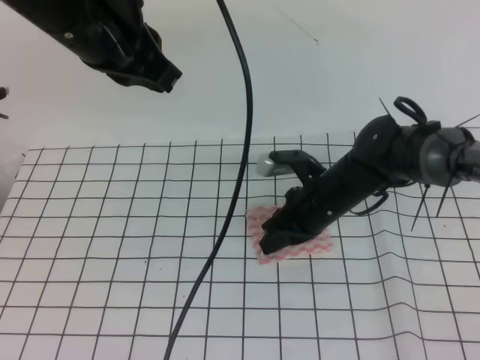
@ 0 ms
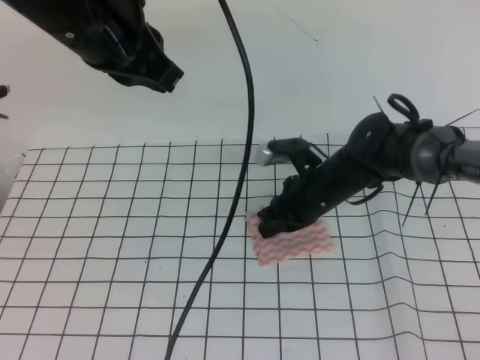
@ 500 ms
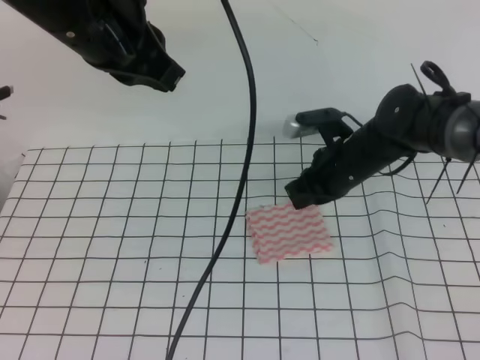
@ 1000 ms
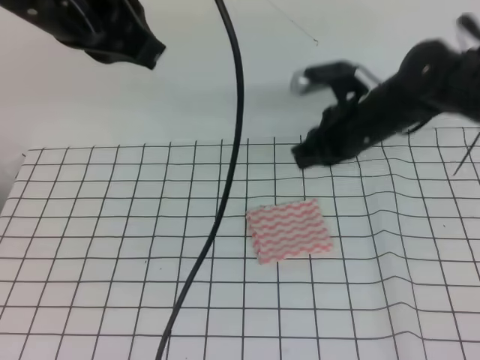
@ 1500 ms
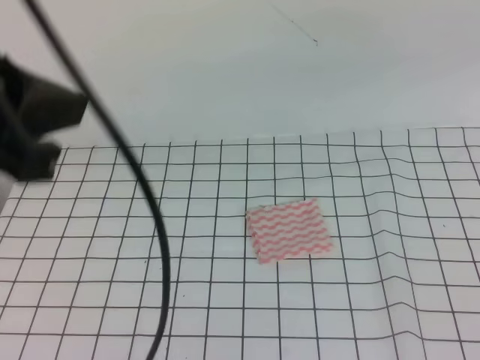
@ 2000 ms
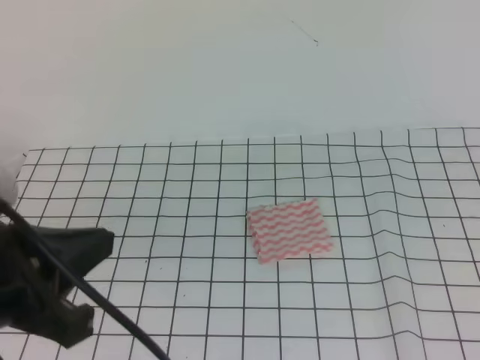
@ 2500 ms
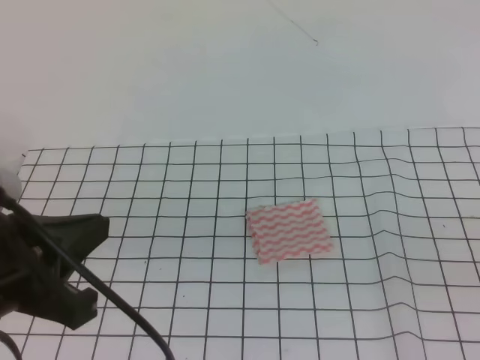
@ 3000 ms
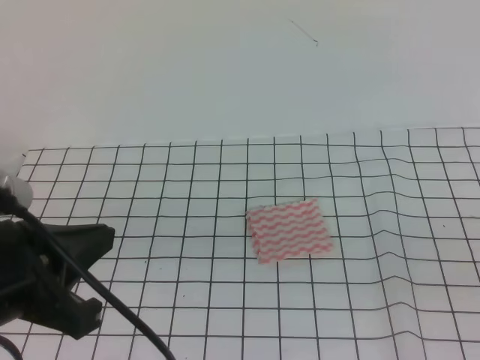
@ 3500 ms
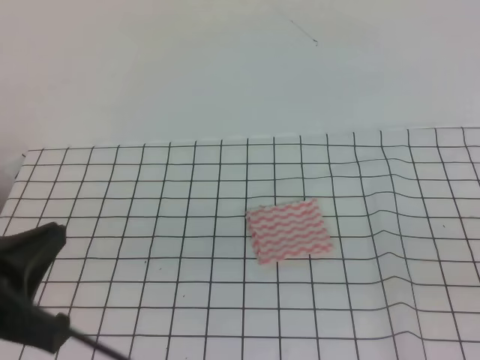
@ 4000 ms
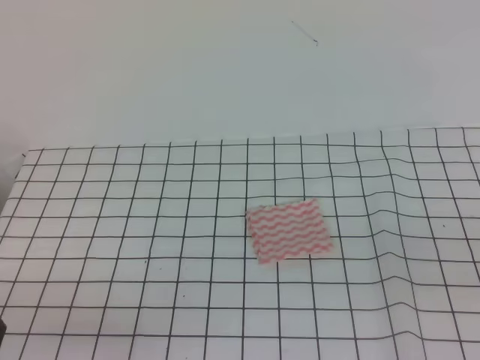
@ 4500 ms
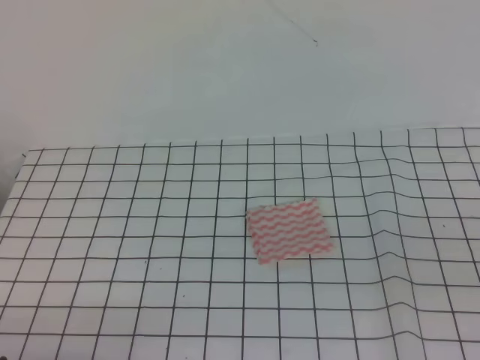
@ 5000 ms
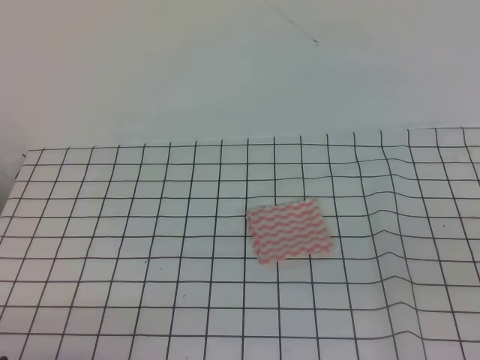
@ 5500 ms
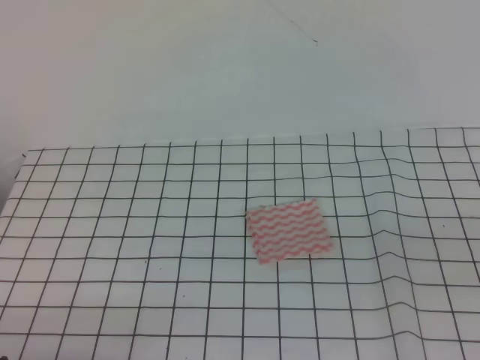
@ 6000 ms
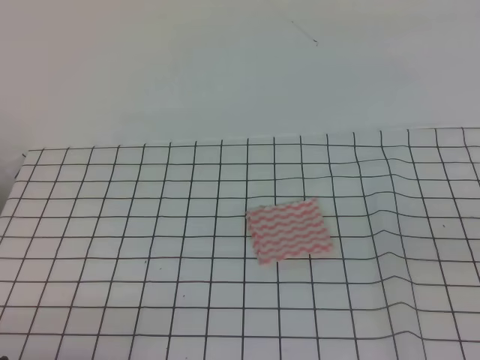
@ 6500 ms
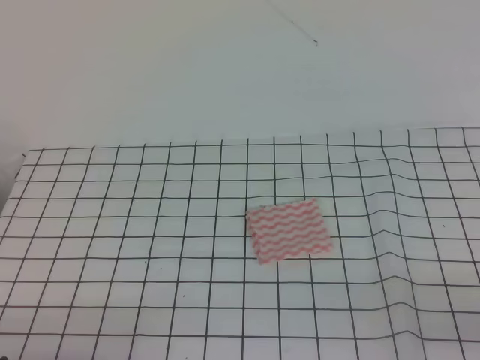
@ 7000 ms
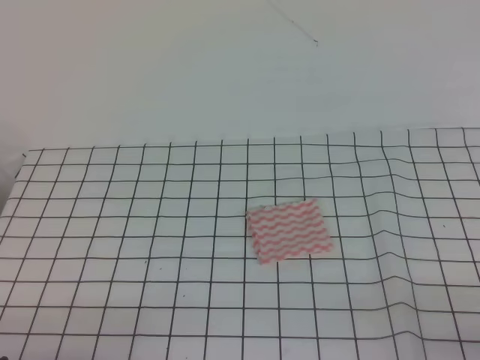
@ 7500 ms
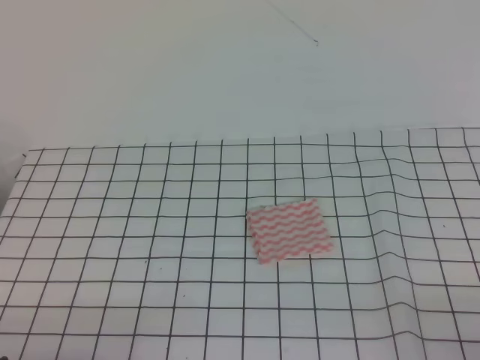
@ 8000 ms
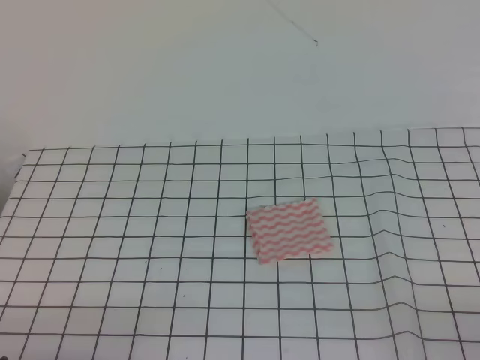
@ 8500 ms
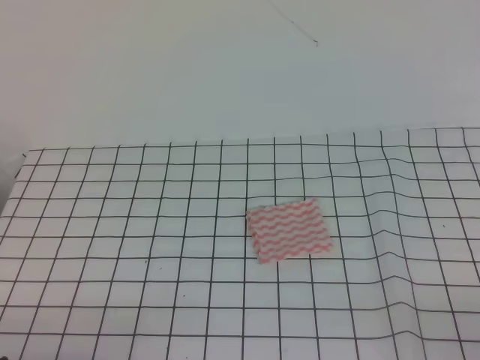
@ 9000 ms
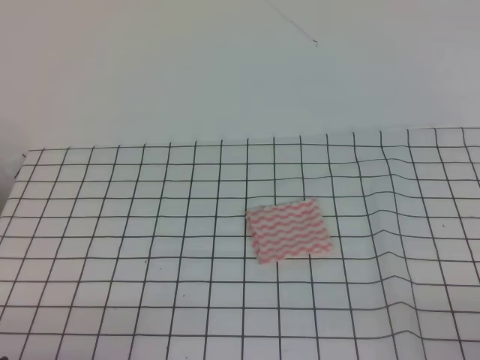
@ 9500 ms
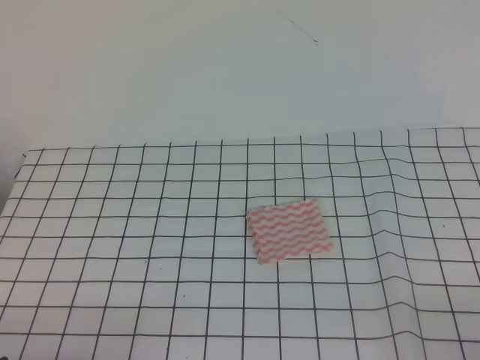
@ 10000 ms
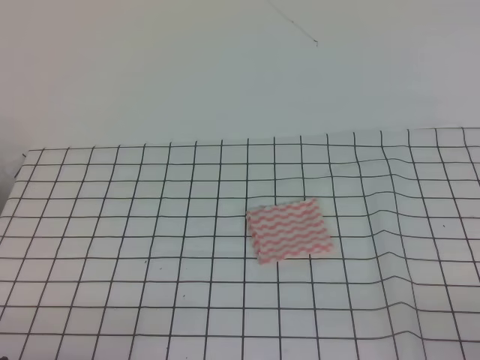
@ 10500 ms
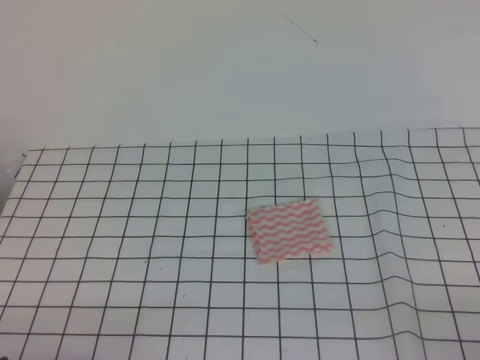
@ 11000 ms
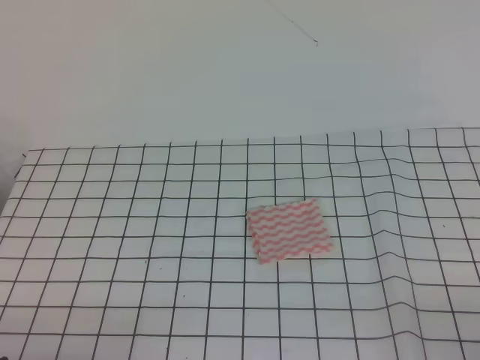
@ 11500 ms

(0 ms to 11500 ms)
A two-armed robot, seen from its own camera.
Step, 0 ms - 11500 ms: Fold the towel.
0 ms - 2000 ms: The left gripper travels backward by some 15 cm, while the right gripper moves upward and backward, approximately 35 cm.
2000 ms - 4000 ms: The left gripper travels downward by some 15 cm; the right gripper travels downward and backward by some 25 cm.
4000 ms - 6000 ms: The left gripper heads downward and backward, covering some 15 cm.
9500 ms - 11500 ms: Both grippers stay put.

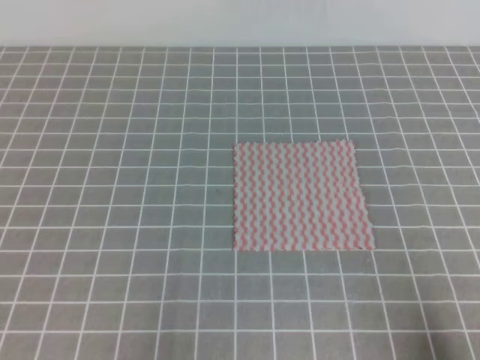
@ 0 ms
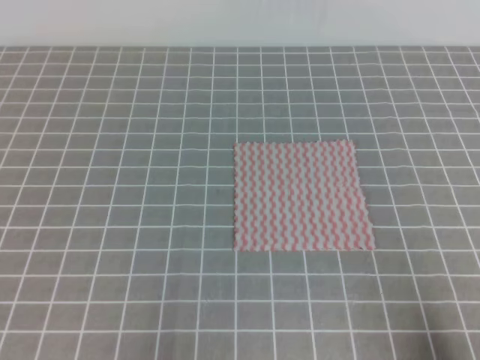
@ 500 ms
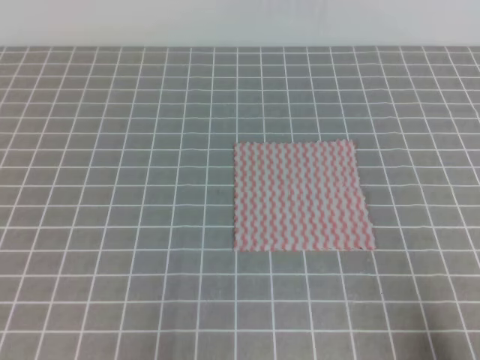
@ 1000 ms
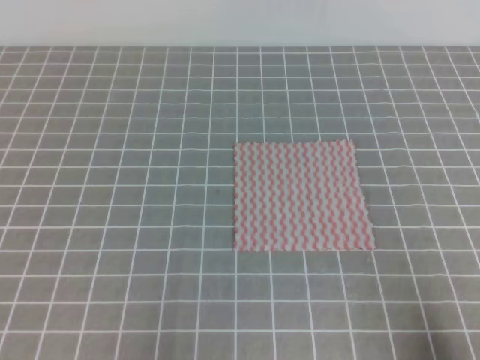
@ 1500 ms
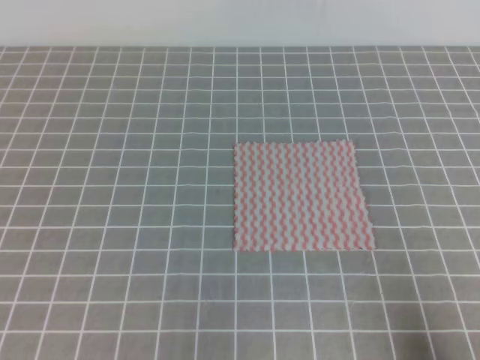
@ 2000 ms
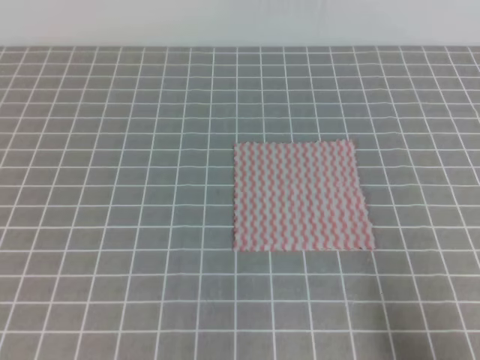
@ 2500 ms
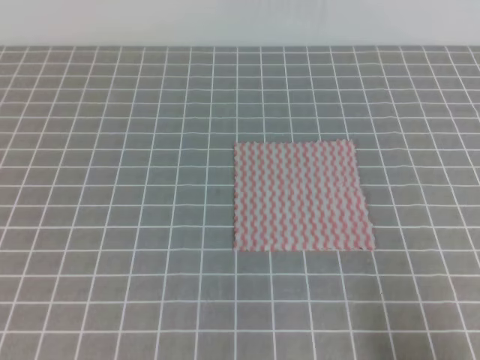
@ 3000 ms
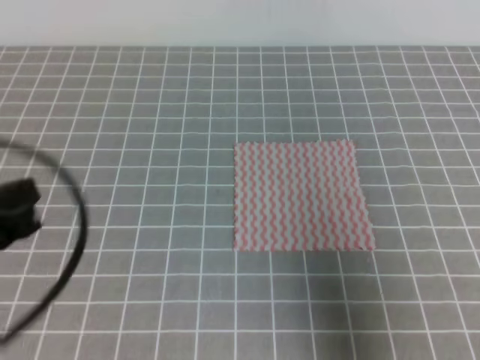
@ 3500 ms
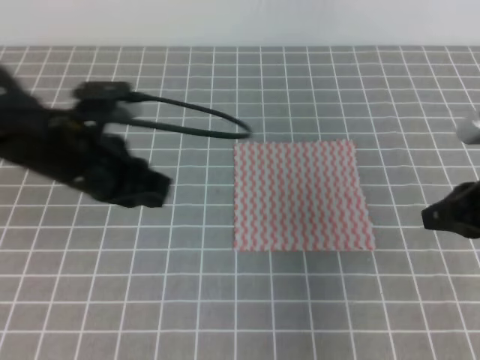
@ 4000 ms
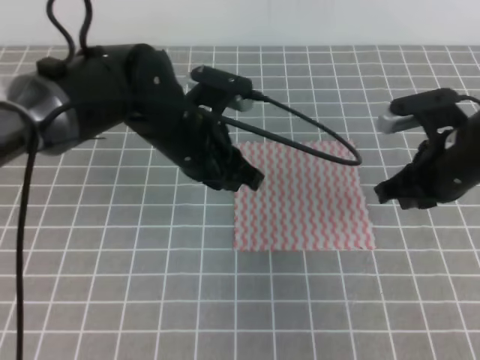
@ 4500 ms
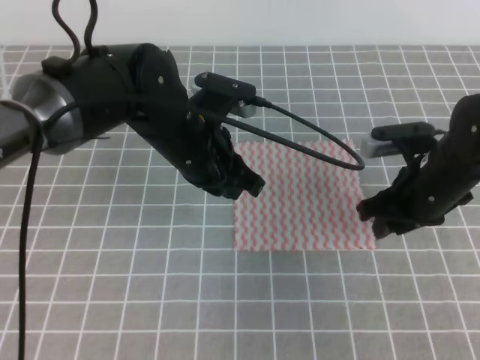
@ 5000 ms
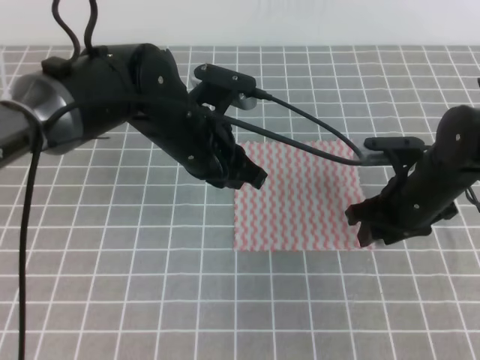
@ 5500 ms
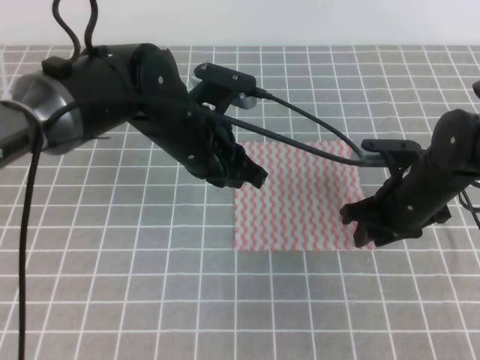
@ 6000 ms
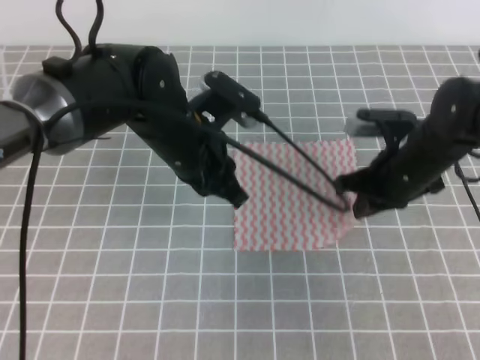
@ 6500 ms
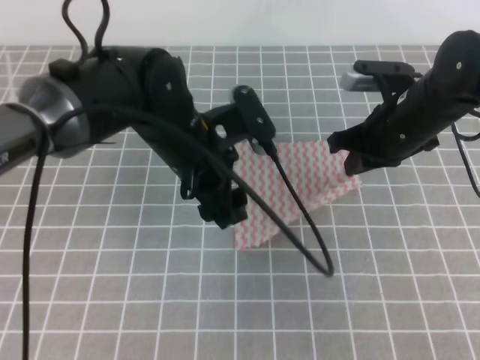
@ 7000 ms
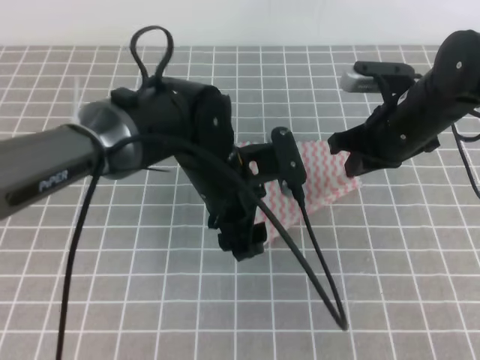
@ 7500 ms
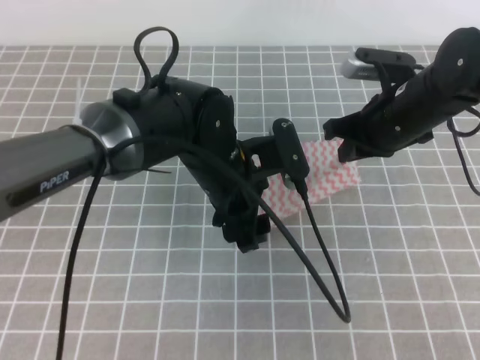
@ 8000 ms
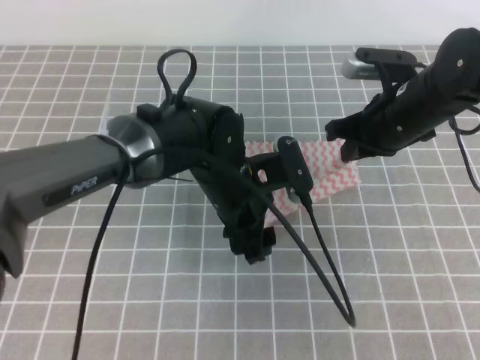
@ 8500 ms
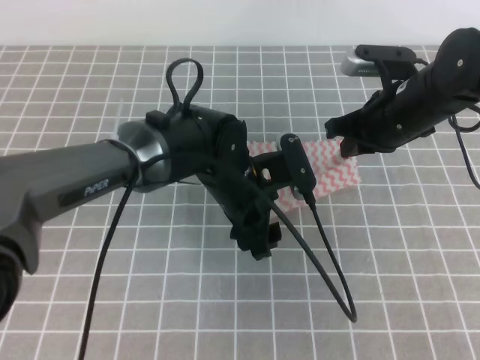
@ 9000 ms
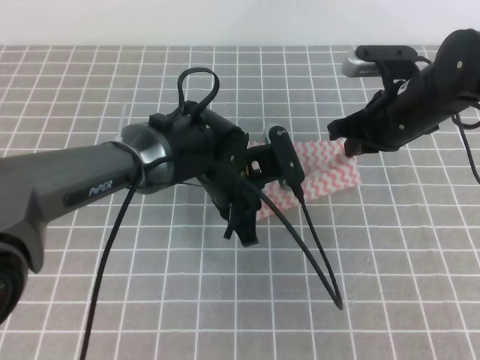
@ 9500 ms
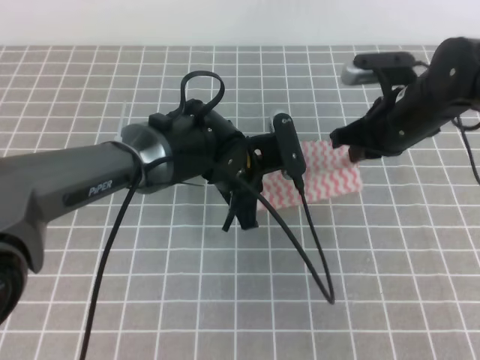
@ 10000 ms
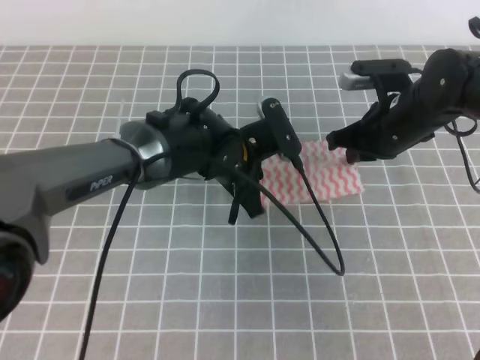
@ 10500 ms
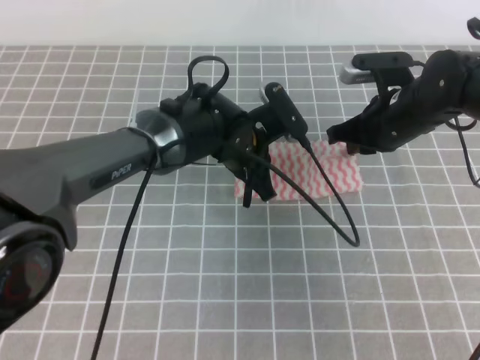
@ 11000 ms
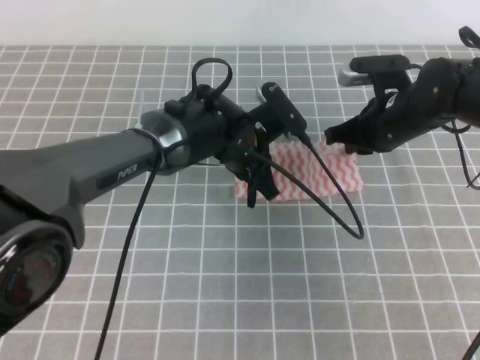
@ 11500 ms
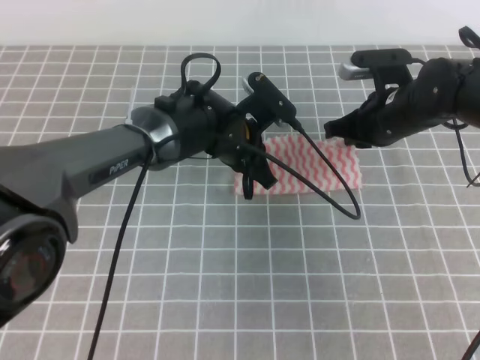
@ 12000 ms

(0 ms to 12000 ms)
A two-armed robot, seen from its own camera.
2000 ms - 4000 ms: The left gripper shifts roughly 25 cm forward and to the right, while the right gripper travels forward and upward by approximately 20 cm.
4000 ms - 6000 ms: The right gripper moves forward, downward and to the left, about 15 cm, and opens. The left gripper moves to the right, some 10 cm.
6000 ms - 8000 ms: The right gripper heads upward, covering roughly 10 cm, and closes, while the left gripper ends up approximately 5 cm from where it was, and opens its fingers.
8000 ms - 10000 ms: The left gripper changes place by approximately 5 cm, and closes up.

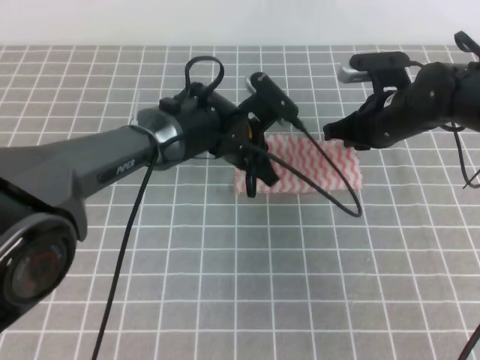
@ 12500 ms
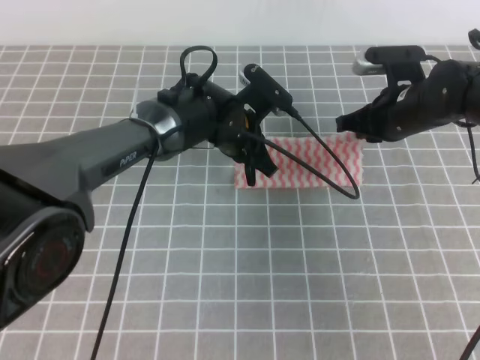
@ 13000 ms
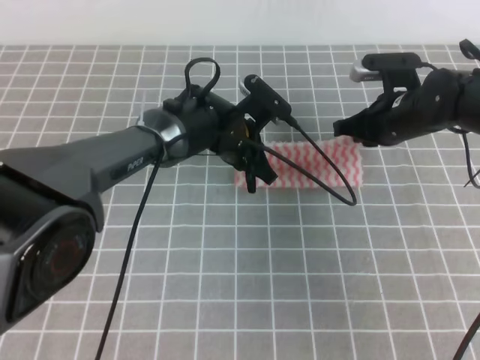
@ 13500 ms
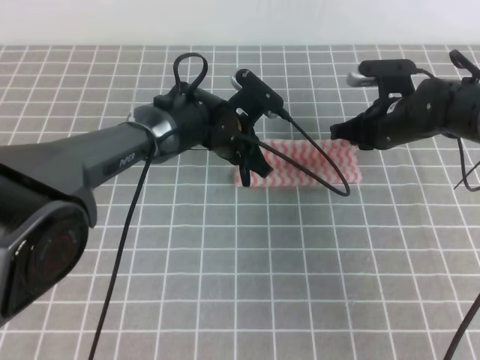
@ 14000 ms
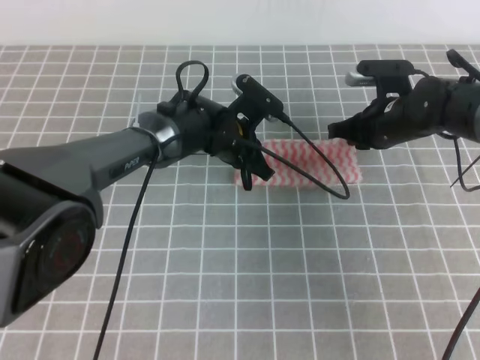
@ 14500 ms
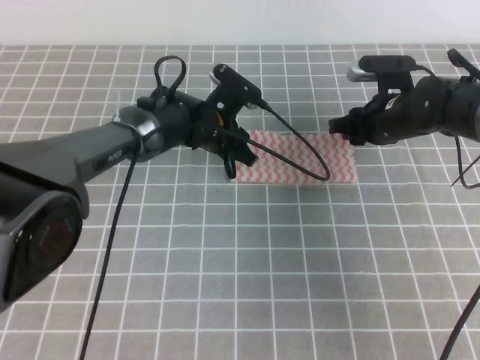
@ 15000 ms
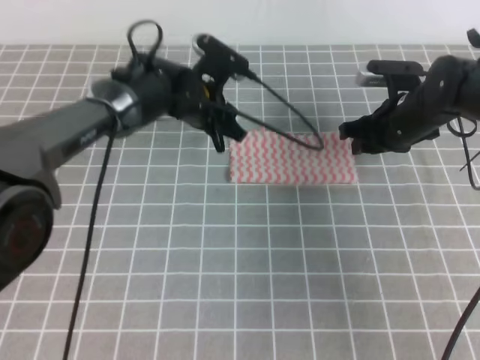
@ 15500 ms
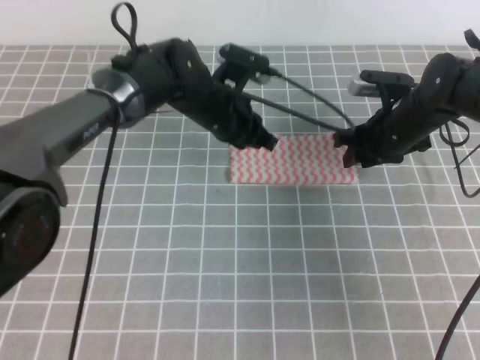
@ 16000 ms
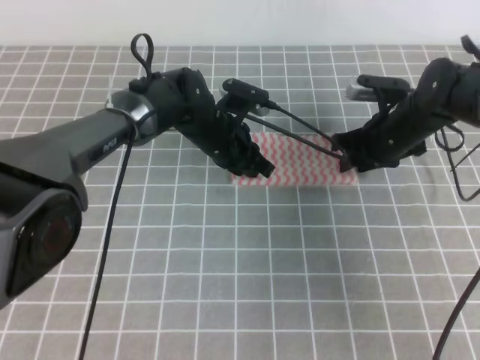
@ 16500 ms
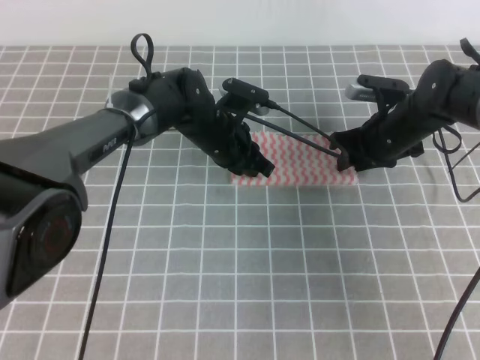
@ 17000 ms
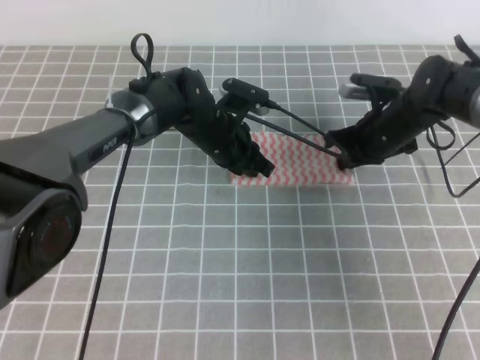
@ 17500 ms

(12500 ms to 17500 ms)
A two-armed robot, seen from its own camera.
12500 ms - 15000 ms: The right gripper opens its fingers, while the left gripper travels forward by approximately 5 cm, and opens up.
15000 ms - 17500 ms: The right gripper closes up. Meanwhile the left gripper closes its fingers.
